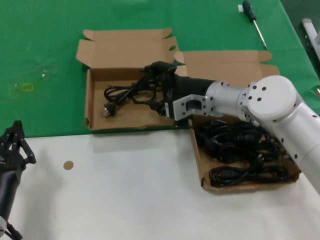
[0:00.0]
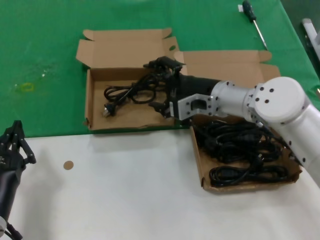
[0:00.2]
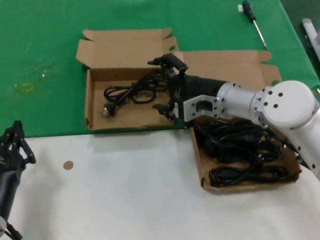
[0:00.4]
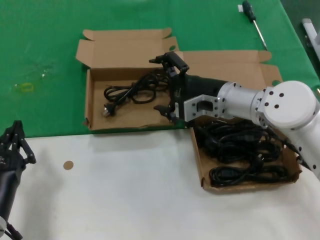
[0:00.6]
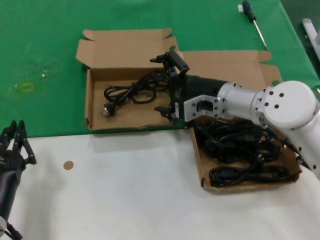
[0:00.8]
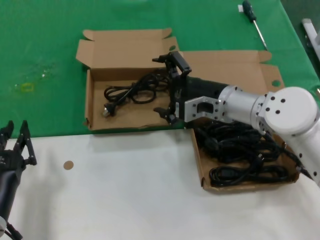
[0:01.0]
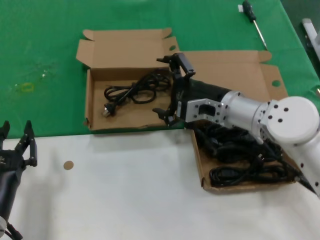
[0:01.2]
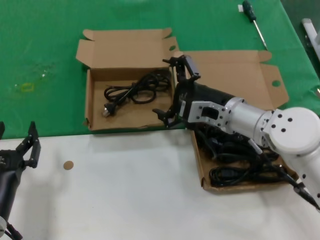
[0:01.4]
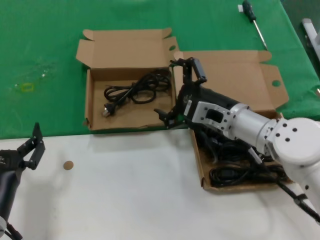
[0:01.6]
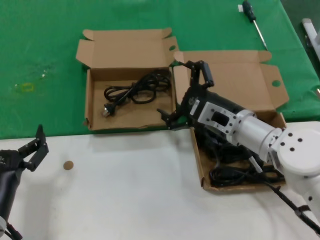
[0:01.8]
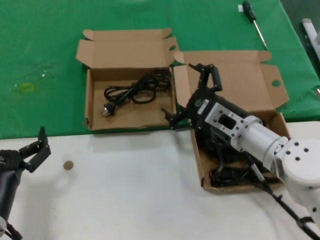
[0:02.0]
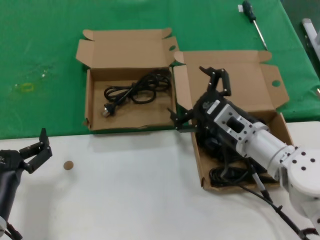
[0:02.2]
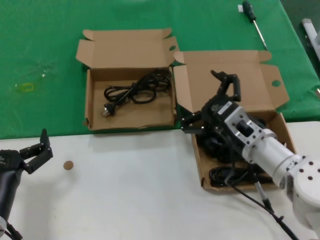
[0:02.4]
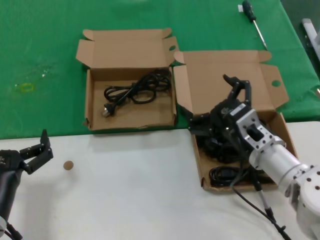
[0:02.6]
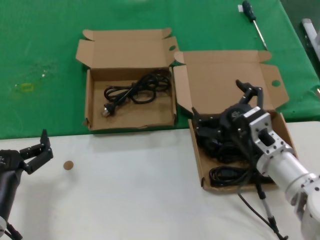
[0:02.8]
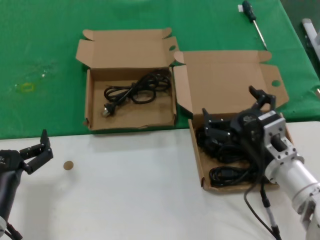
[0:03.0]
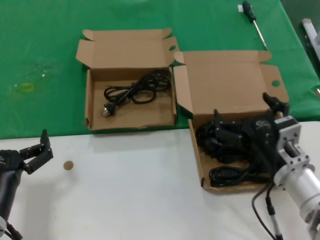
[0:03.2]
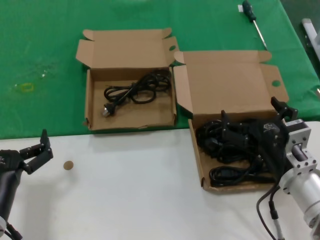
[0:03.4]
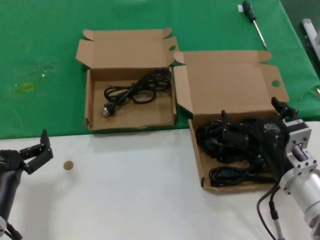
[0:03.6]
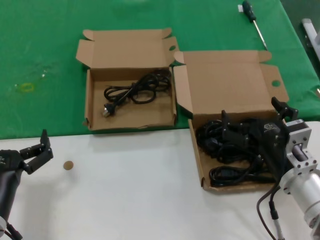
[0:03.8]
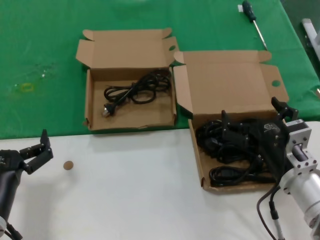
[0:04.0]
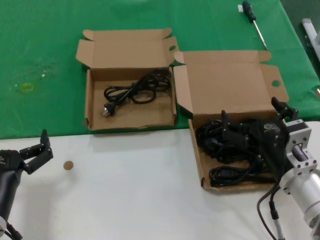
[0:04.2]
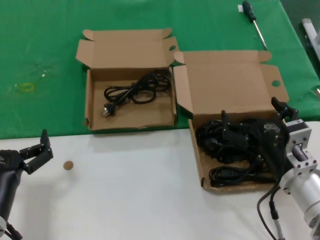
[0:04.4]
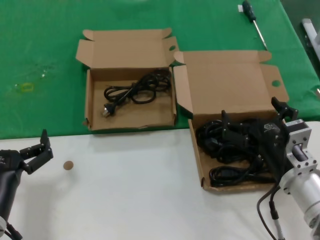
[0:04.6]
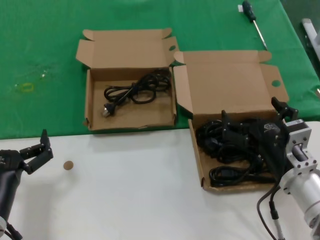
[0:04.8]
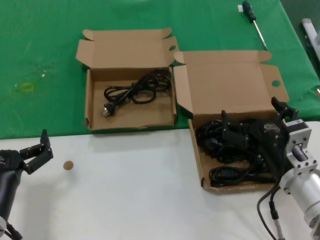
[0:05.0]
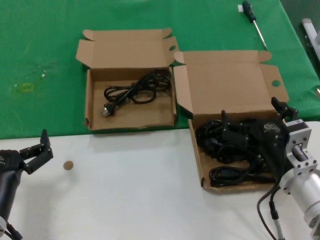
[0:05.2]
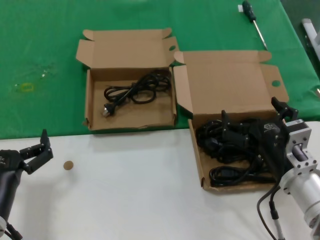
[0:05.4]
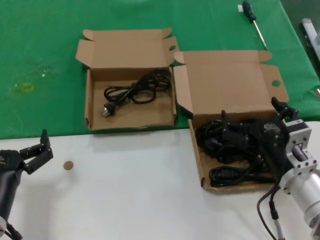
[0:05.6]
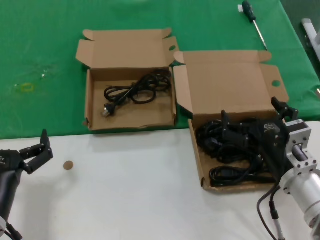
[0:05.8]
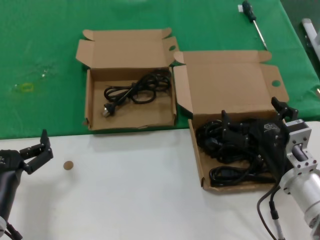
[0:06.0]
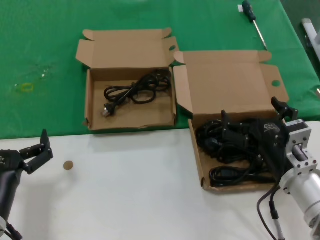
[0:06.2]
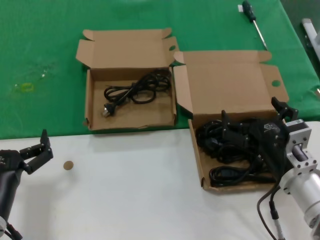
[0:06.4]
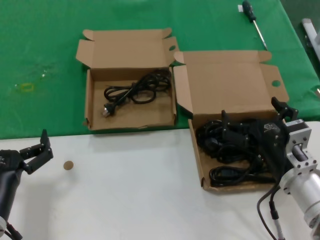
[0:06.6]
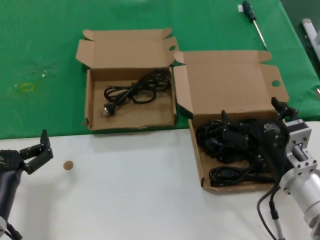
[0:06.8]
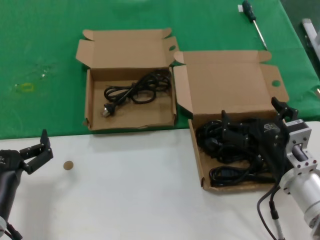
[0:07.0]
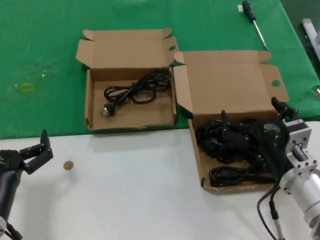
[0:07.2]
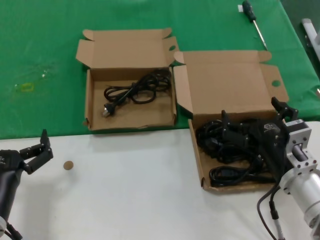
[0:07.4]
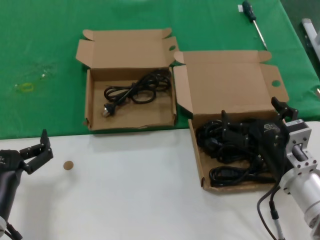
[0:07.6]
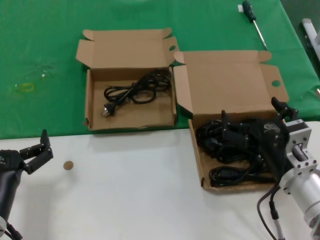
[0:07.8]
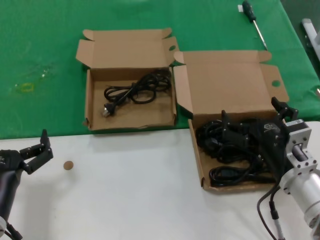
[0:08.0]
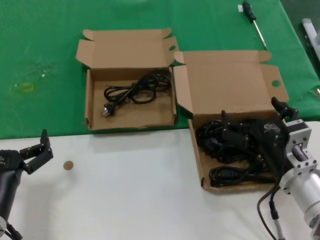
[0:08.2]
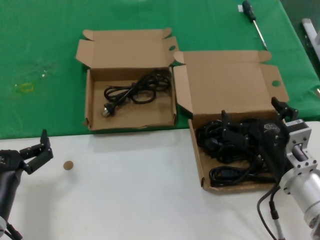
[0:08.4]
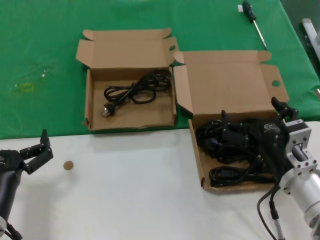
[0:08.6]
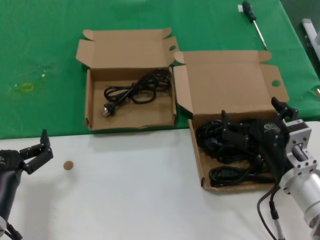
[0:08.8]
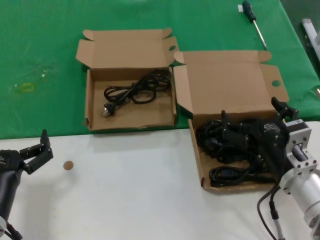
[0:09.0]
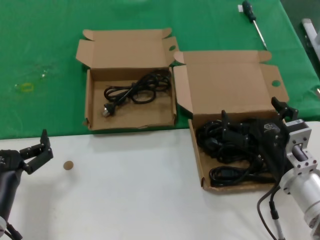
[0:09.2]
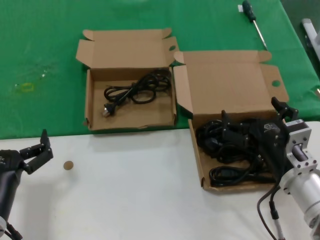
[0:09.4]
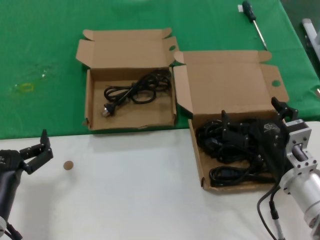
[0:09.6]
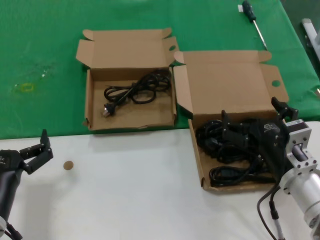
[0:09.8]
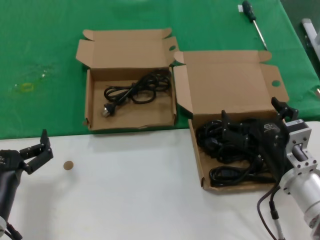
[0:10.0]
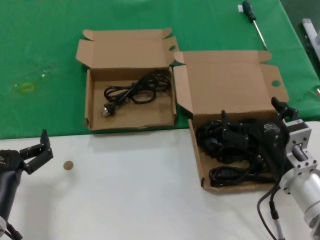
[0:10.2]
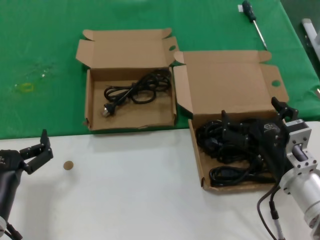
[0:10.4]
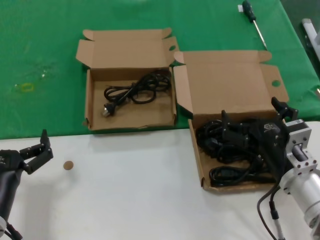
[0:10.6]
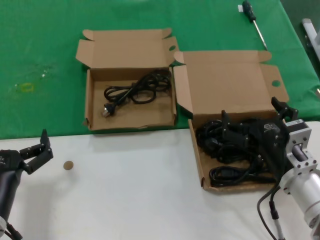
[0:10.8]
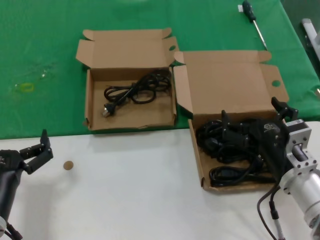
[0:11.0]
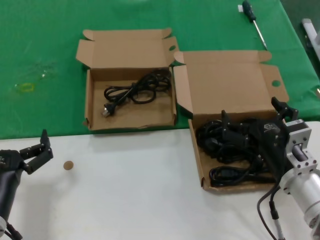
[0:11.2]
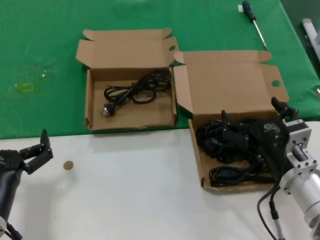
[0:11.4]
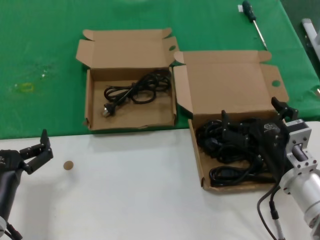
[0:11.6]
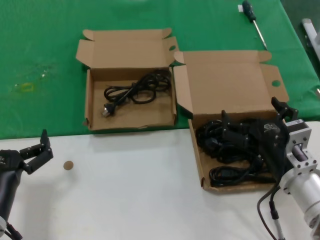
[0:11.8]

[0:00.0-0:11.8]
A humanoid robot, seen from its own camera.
Task of the whole recording: take the parts from the box containing them and put them into an empty box.
0:00.0 to 0:01.4: The right hand moves roughly 5 cm.
0:01.4 to 0:03.0: The right hand goes some 15 cm backward and downward.
0:03.0 to 0:04.4: The hands move only a little.
0:04.4 to 0:11.8: The two hands keep their place.

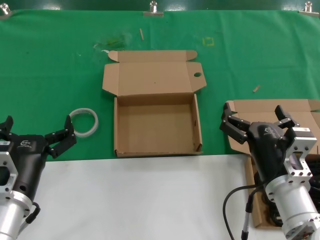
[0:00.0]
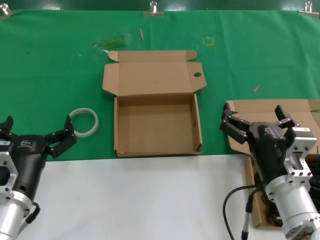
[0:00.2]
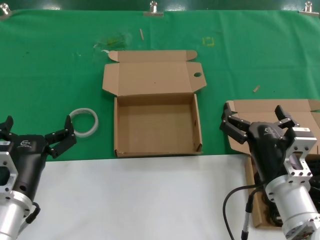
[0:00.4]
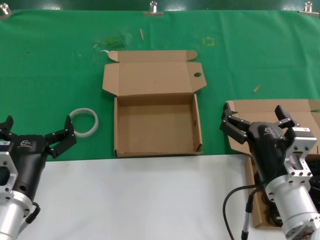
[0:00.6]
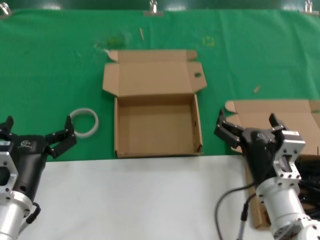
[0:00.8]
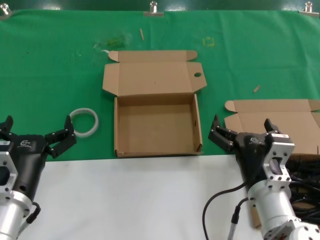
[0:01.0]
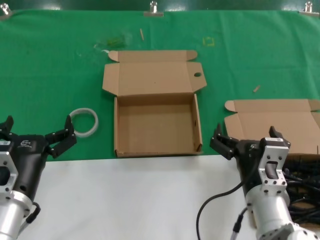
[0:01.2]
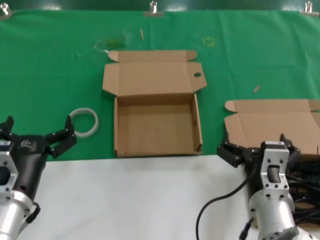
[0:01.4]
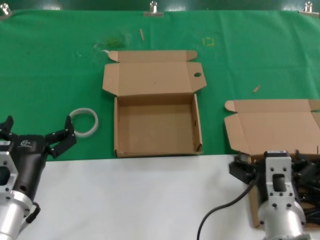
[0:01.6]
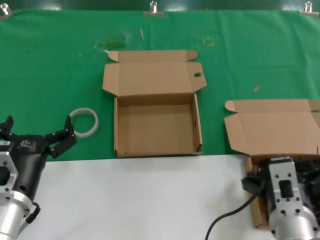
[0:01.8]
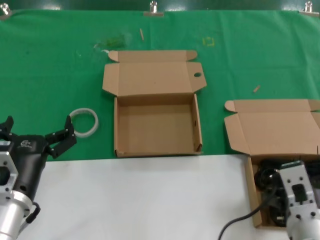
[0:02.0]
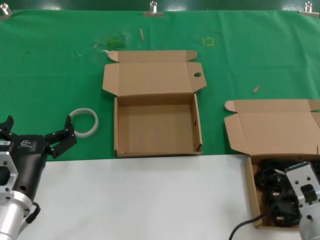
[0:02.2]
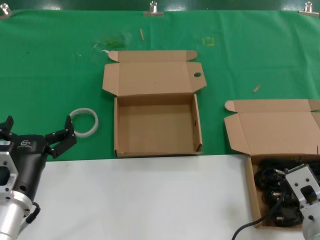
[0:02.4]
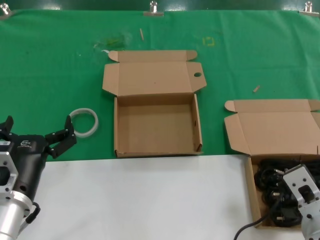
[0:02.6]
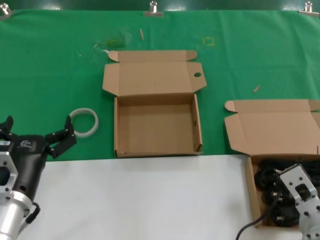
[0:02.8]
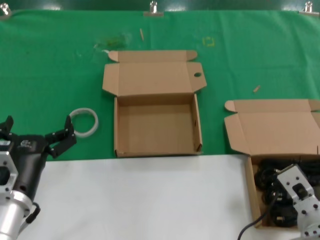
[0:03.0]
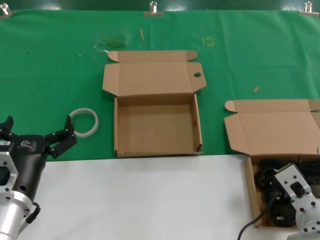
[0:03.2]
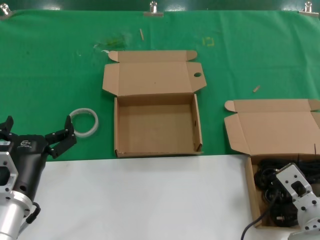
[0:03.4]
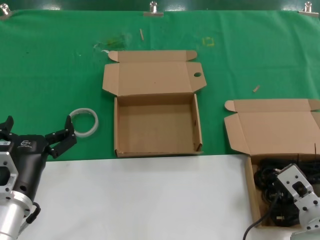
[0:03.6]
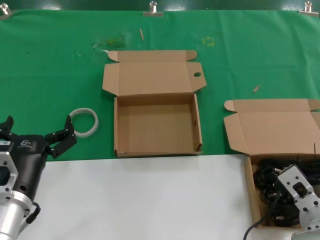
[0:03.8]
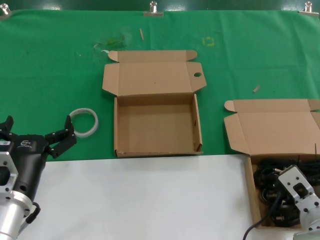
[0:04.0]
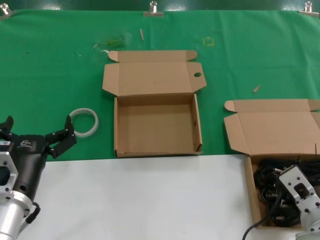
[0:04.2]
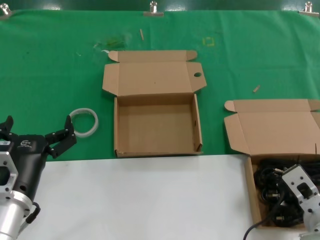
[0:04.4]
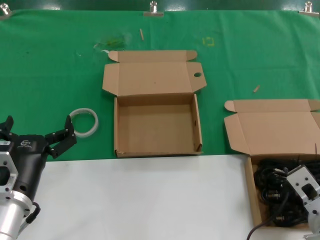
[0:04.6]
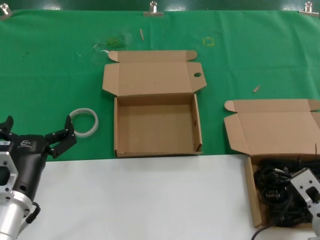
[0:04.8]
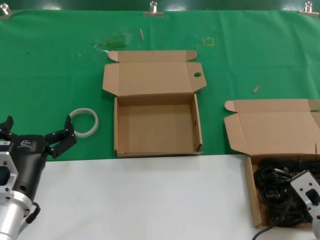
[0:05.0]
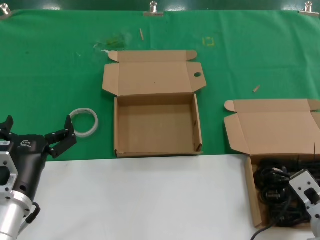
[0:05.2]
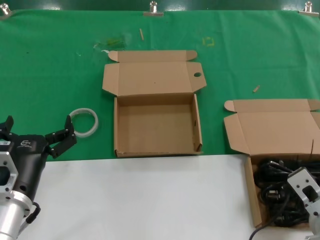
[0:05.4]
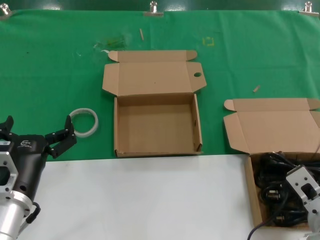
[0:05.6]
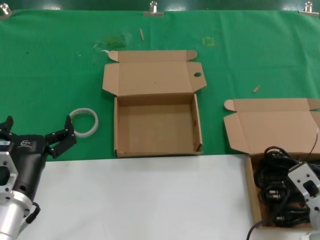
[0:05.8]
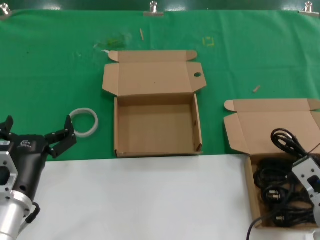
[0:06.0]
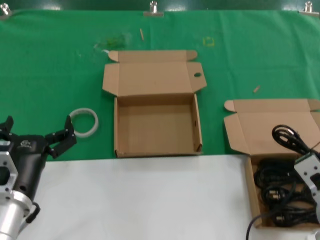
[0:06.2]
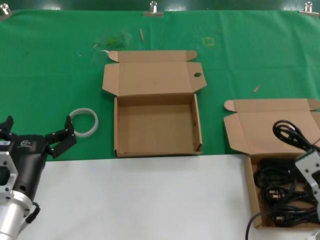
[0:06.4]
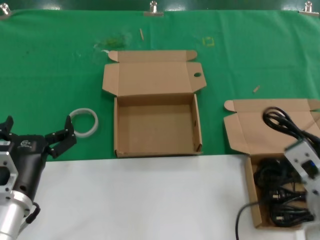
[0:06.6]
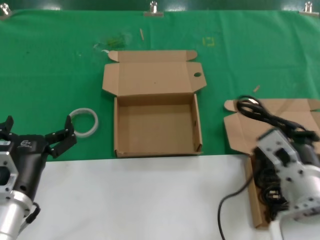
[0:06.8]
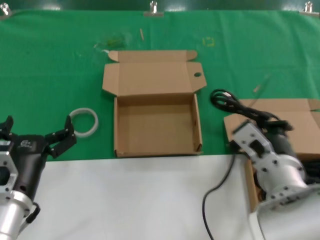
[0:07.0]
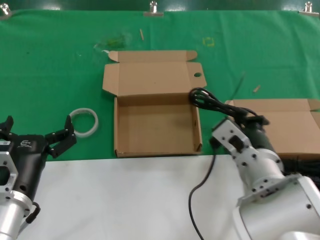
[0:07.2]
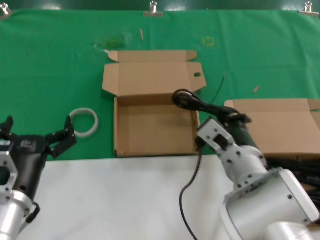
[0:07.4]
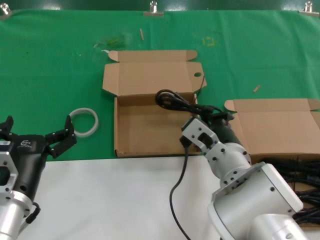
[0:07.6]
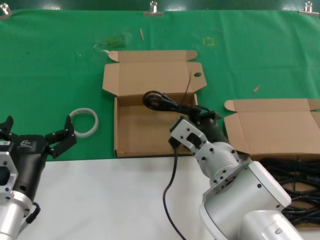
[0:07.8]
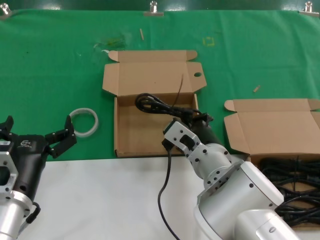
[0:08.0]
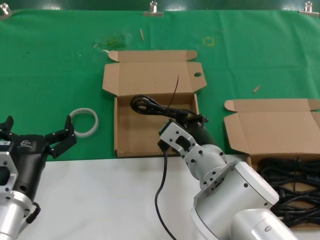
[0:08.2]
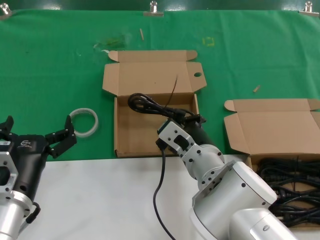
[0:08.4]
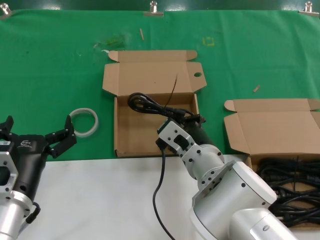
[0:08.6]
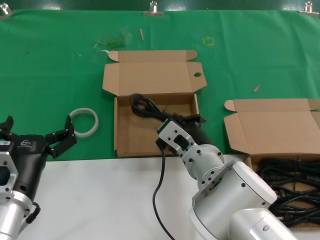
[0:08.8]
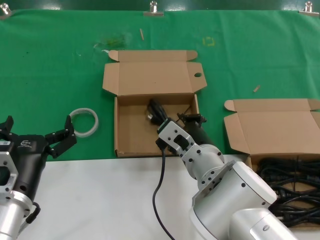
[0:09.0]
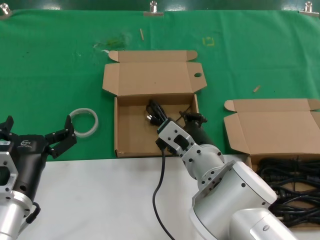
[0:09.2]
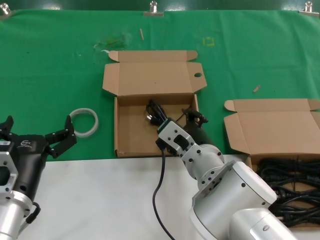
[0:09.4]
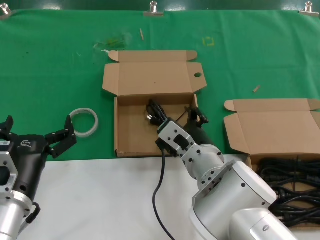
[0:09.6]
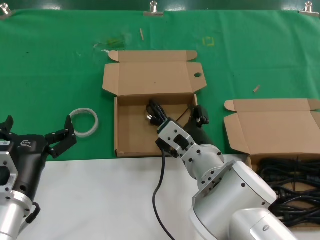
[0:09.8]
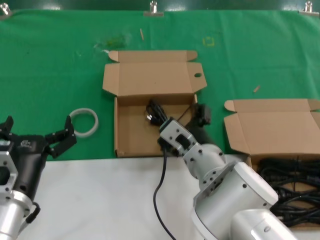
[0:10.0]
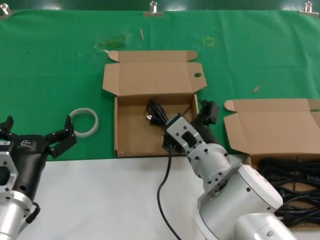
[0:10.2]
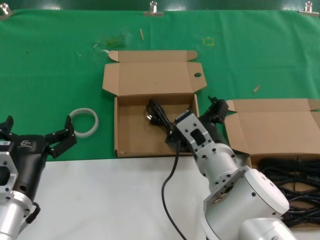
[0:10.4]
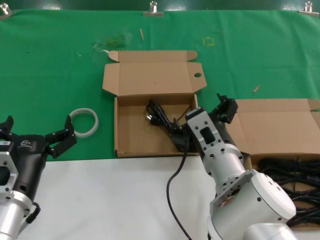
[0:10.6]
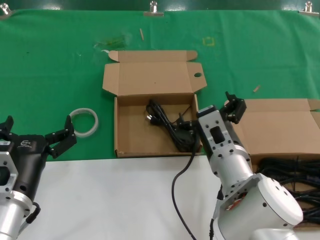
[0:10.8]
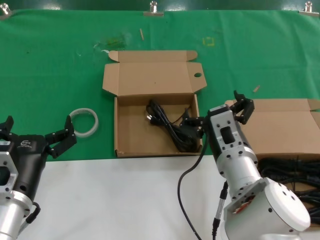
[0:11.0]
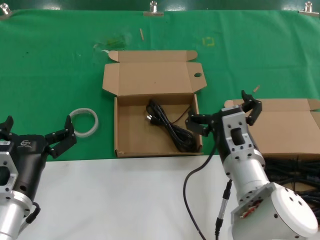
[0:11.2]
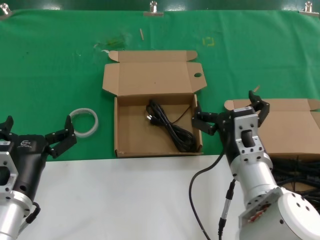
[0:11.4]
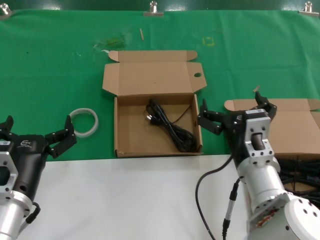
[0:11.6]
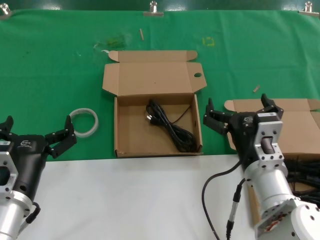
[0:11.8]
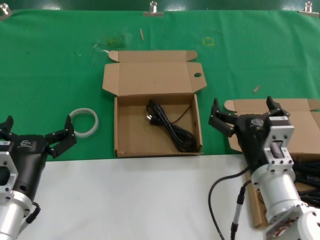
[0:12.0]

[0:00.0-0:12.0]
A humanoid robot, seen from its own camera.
Task of the whole recording: take the parts from the box containing them and put them into an empty box.
Step, 0:00.0 to 0:05.2: Grasp the data cable.
Step, 0:05.4 to 0:08.8: Place the data cable in the another box.
0:00.0 to 0:01.6: The right hand changes place by some 5 cm.
0:01.6 to 0:03.0: The right hand travels to the right by some 5 cm.
0:03.0 to 0:06.0: The hands move only a little.
0:06.0 to 0:07.6: The right hand heads to the left and forward, covering some 15 cm.
0:07.6 to 0:10.4: The hands make only small movements.
0:10.4 to 0:12.0: The right hand moves to the right, about 10 cm.
